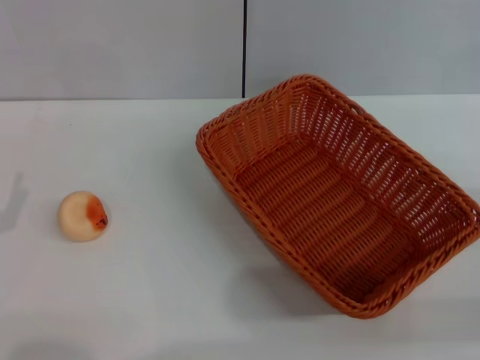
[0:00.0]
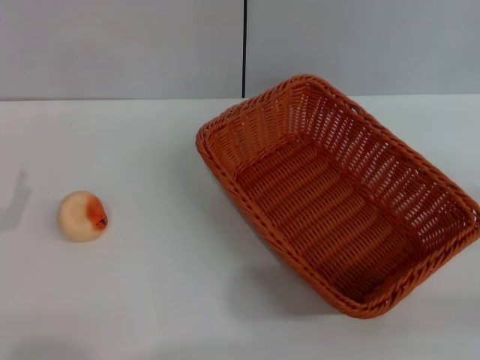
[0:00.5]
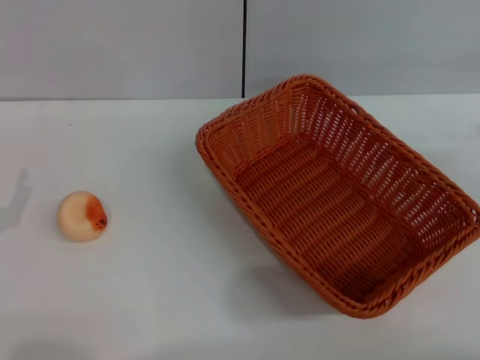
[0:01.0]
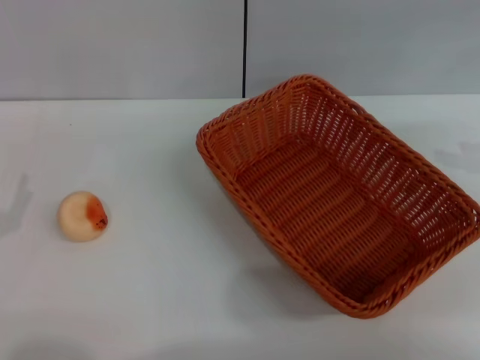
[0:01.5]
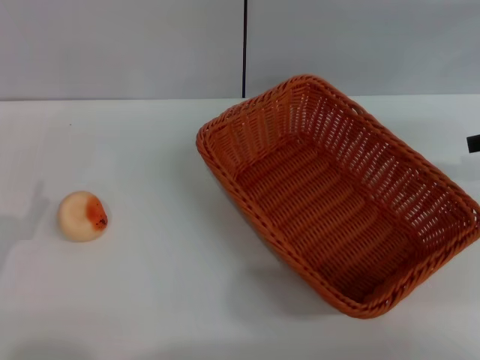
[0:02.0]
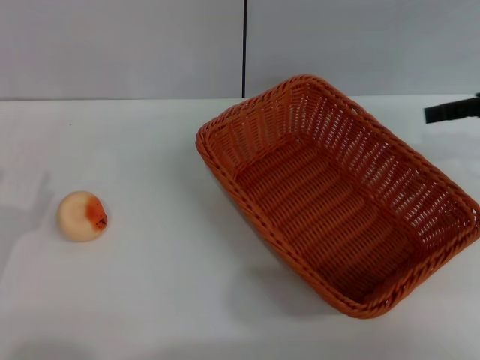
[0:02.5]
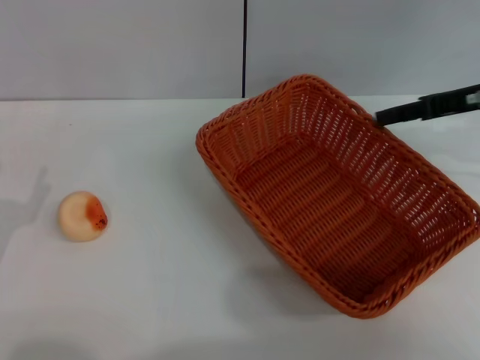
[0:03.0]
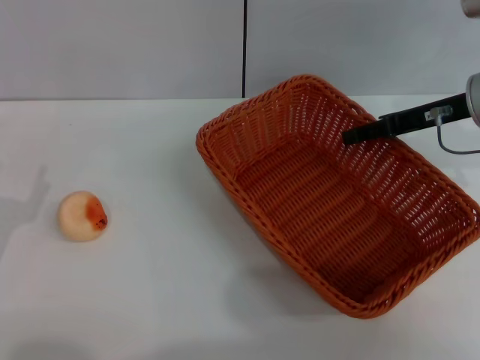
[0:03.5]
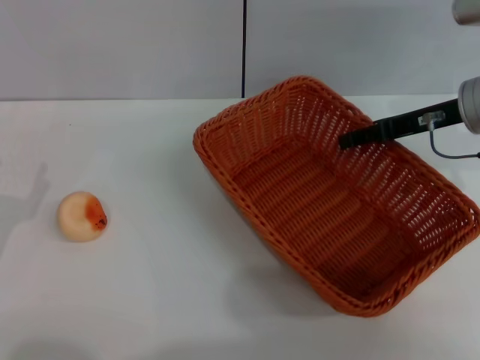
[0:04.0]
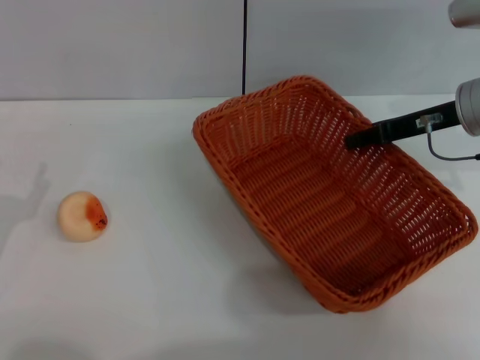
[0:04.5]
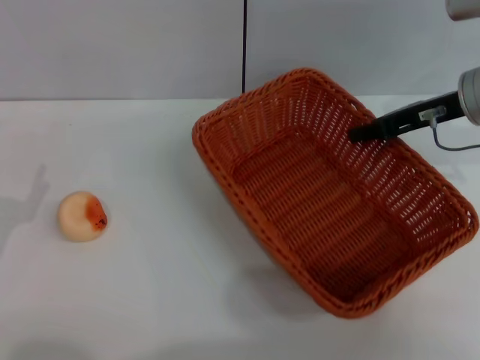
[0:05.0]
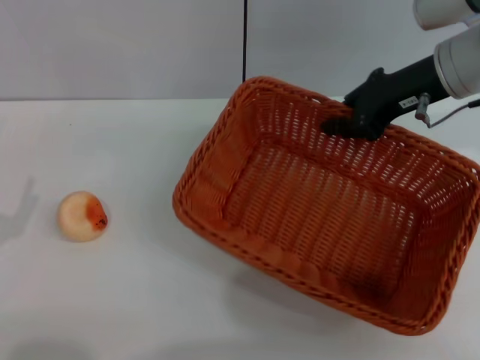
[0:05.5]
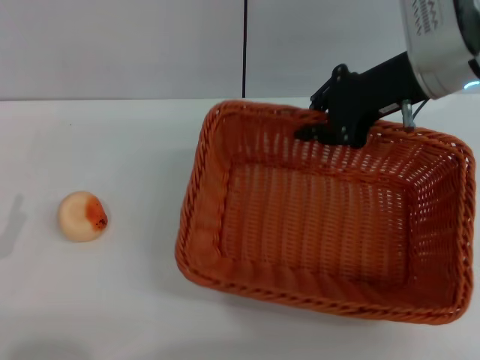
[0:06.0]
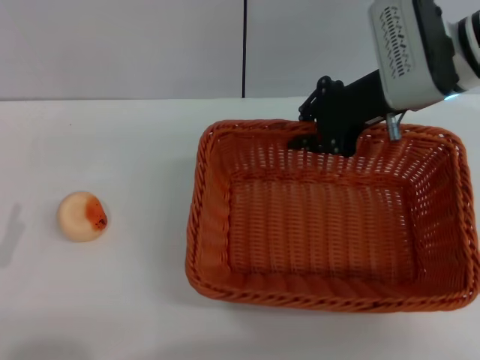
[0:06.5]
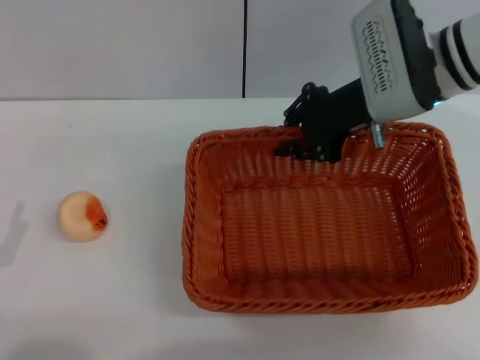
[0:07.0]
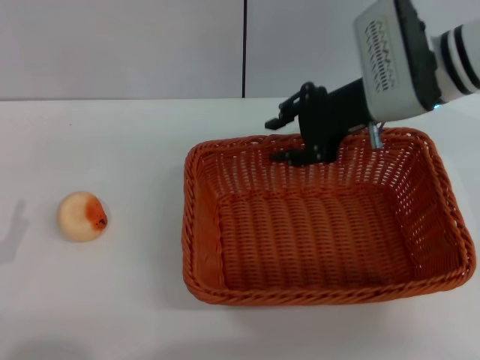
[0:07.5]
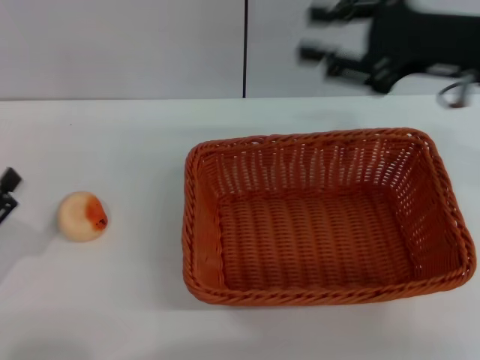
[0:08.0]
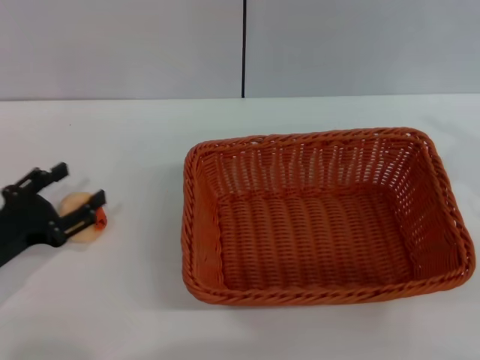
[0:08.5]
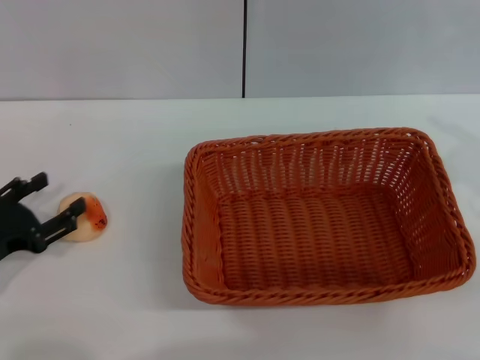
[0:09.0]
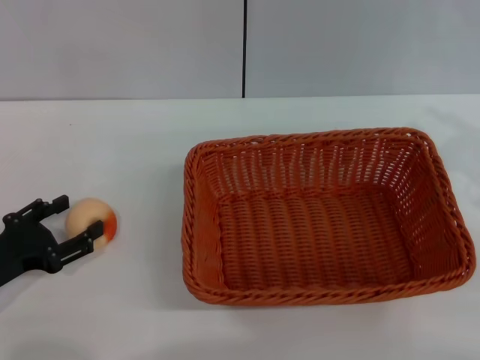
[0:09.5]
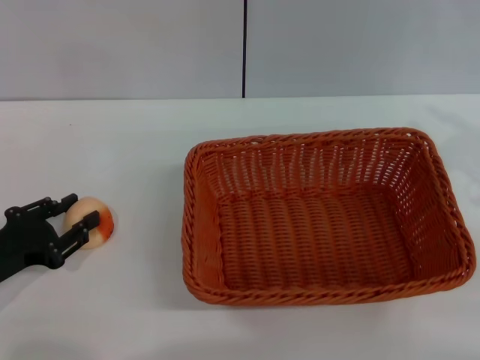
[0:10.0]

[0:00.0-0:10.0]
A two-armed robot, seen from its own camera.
Step, 0:00.0 to 0:07.5: Move the basket to the center of view with the right gripper.
0:00.0 to 0:02.0: The right gripper goes approximately 20 cm forward and upward.
0:02.0 to 0:04.0: The right gripper heads to the left, downward and forward, covering approximately 15 cm.
0:04.0 to 0:06.0: The left gripper is displaced backward by some 5 cm, while the right gripper shifts some 10 cm to the left and upward, and closes up.
0:06.0 to 0:08.0: The right gripper travels backward by roughly 5 cm, and opens up.
0:08.0 to 0:10.0: The right gripper shifts about 15 cm to the right, backward and downward, while the left gripper goes approximately 5 cm forward.

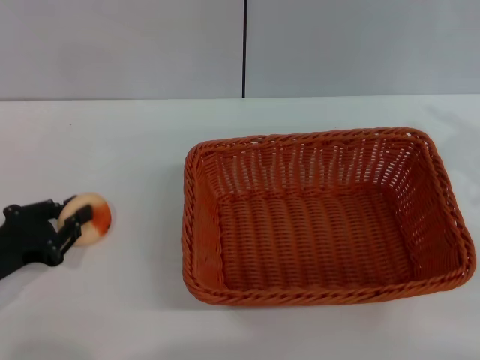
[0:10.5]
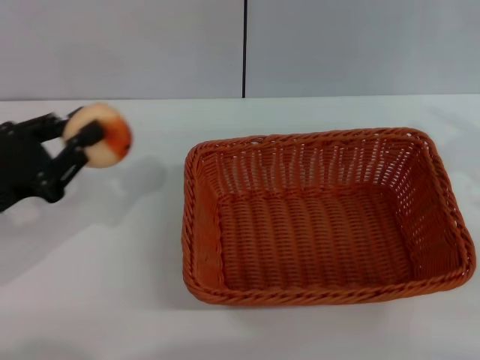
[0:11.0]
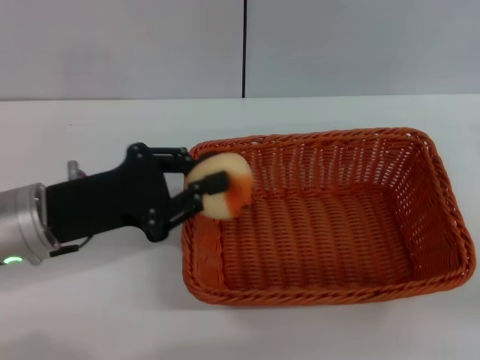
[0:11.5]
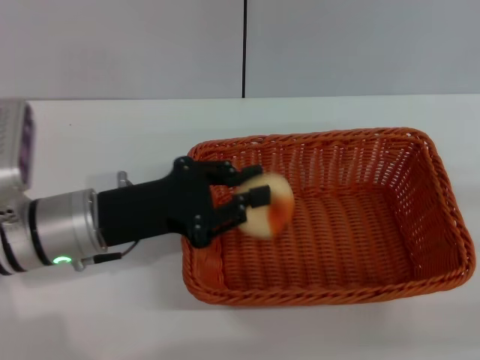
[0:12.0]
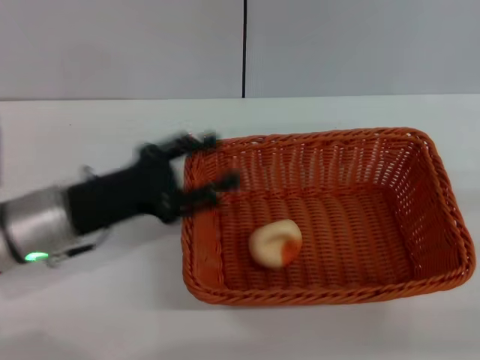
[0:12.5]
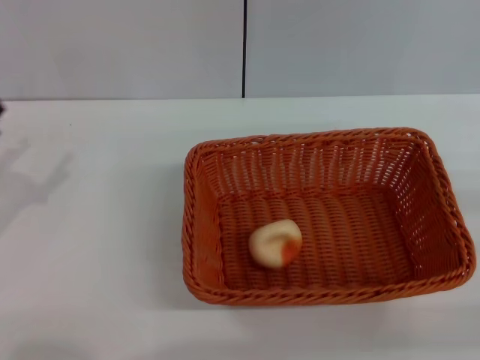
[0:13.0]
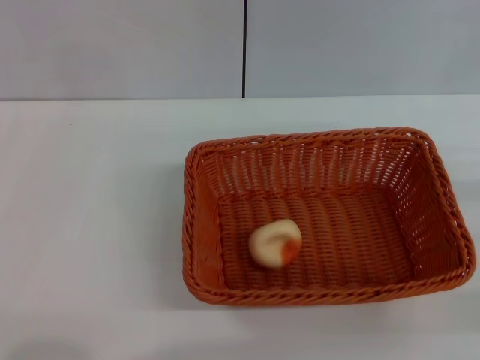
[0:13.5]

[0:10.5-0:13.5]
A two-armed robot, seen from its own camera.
Step, 0:11.0 to 0:12.0: Place the egg yolk pastry into the basket with the left gripper.
0:10.5 to 0:12.0: The right gripper goes approximately 10 cm to the right, backward and downward; the left gripper heads to the right and forward, covering about 15 cm.
0:12.0 to 0:13.5: The left gripper moves to the left and backward, about 20 cm, and opens.
